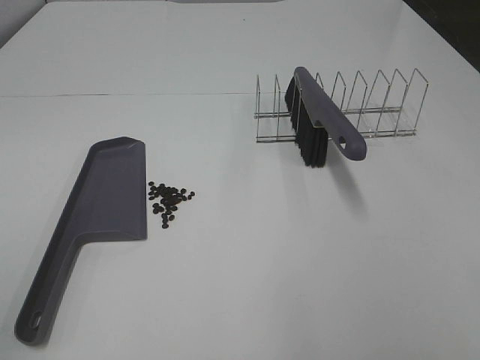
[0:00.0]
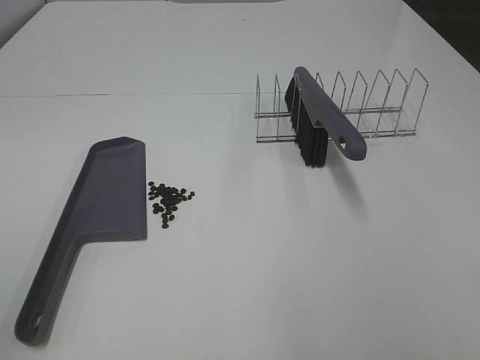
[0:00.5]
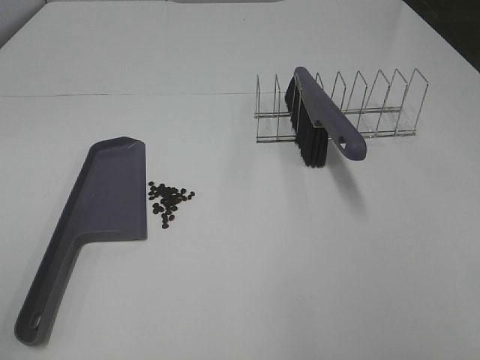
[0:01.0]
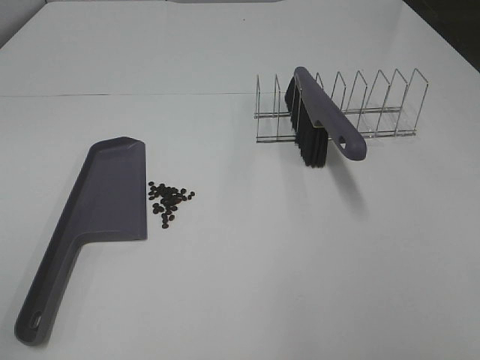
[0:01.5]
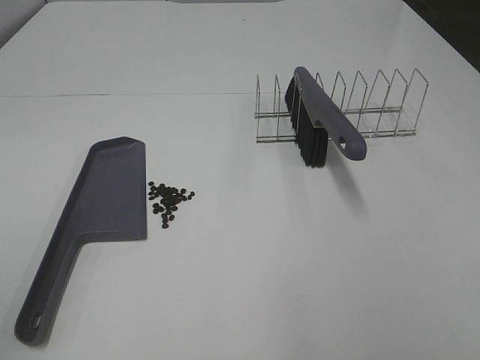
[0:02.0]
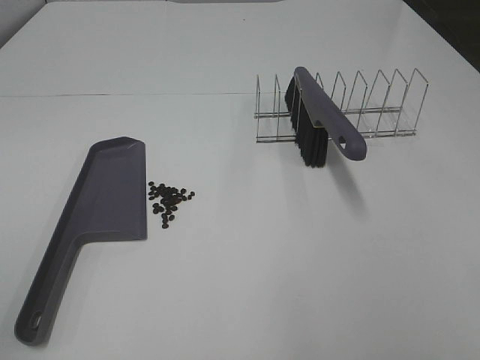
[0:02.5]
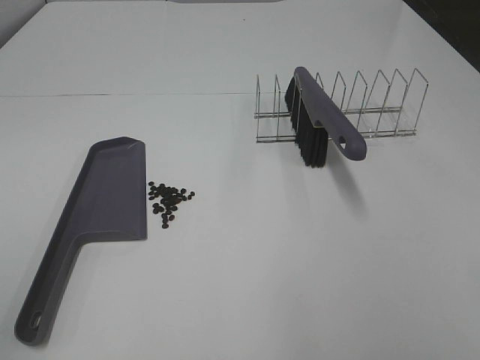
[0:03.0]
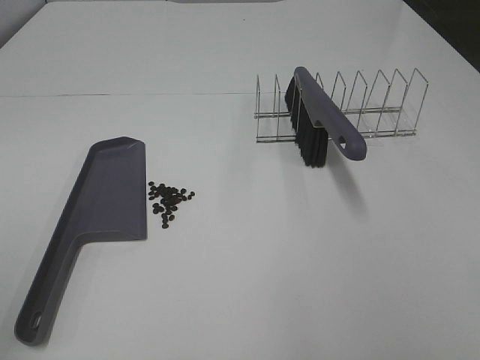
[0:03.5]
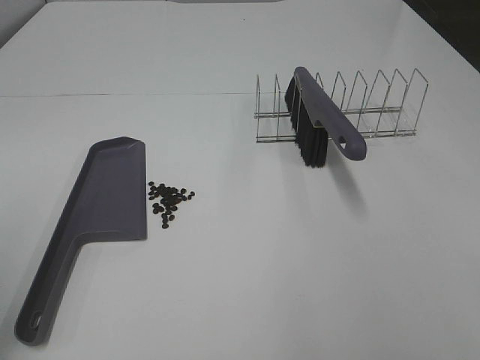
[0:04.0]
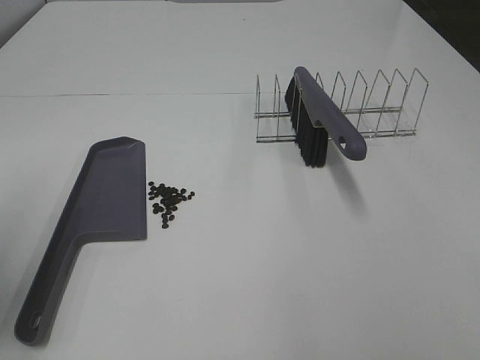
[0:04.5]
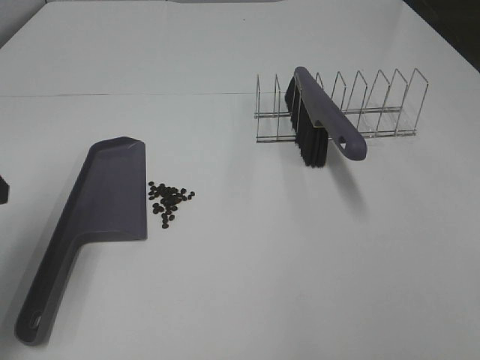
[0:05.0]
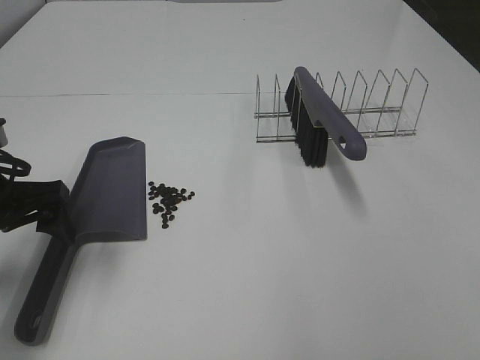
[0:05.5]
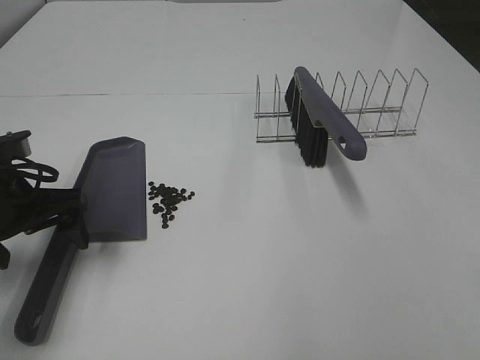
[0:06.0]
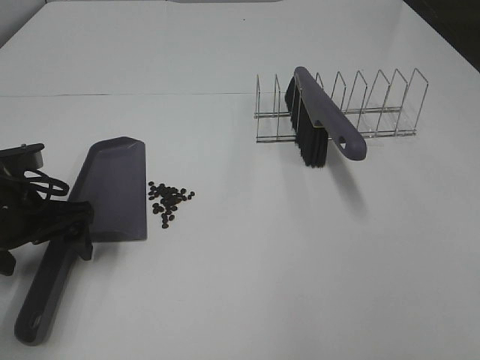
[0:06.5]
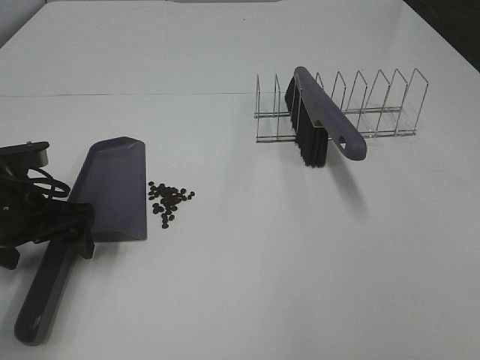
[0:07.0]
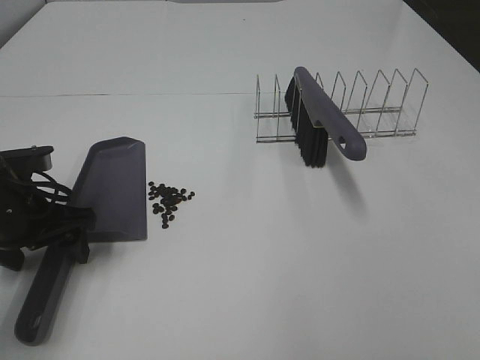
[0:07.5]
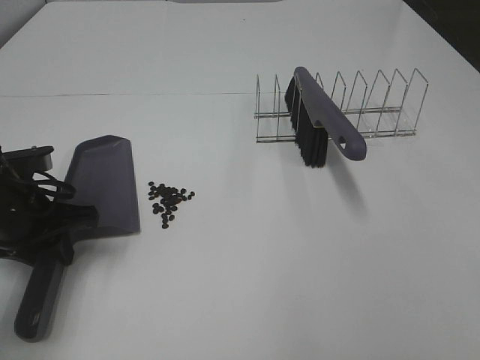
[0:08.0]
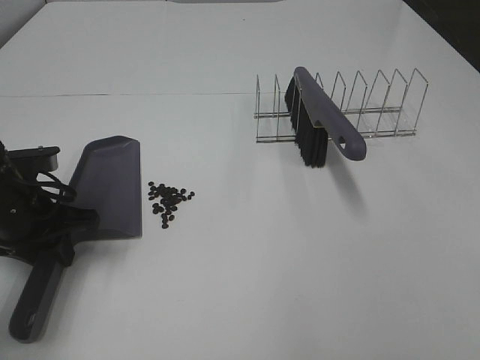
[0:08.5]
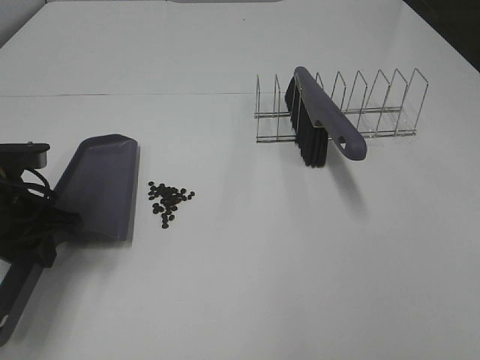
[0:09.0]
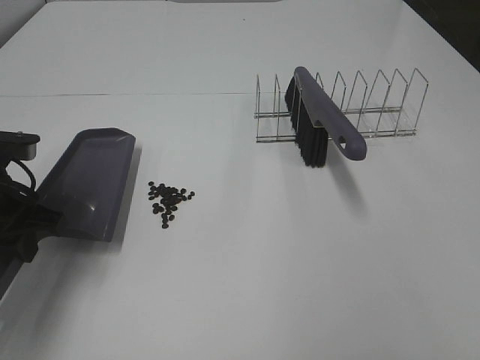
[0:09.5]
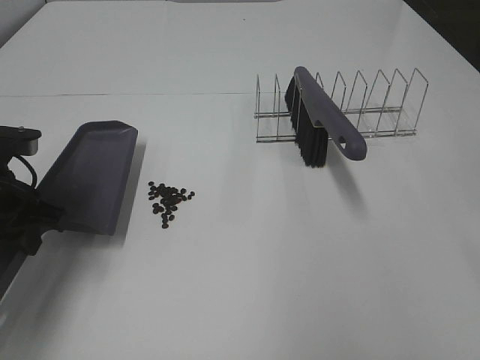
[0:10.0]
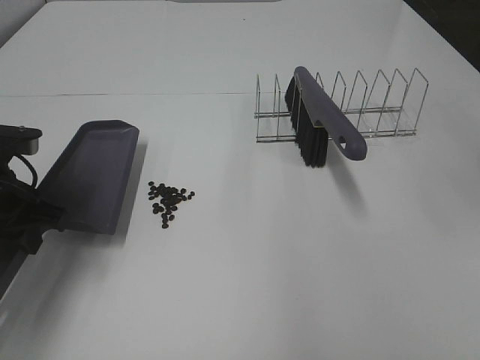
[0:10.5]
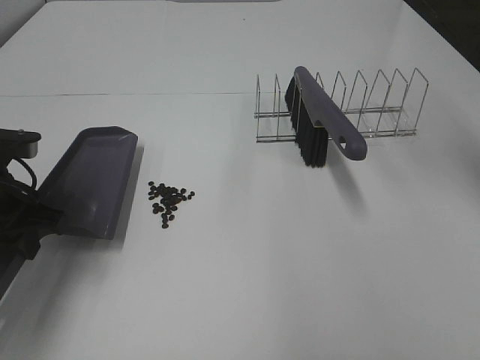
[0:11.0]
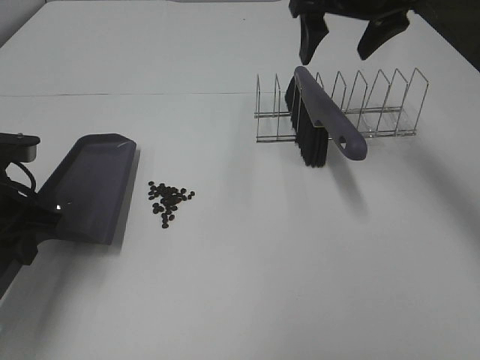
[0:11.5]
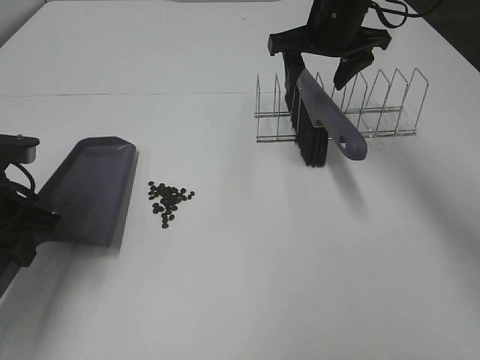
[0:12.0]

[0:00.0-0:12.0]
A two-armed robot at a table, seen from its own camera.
Task of the whole recording: Sweep Coffee Bean.
Step, 0:00.0 to 0:08.0: Left hand: grab the dustpan.
0:00.0 to 0:02.0: Both grippers stay put.
0:04.0 to 0:06.0: The left gripper moves forward, downward and to the right, approximately 25 cm.
0:06.0 to 0:08.0: The left gripper closes its fingers.
0:10.0 to 0:12.0: The right gripper heads forward and downward, covering roughly 35 cm.

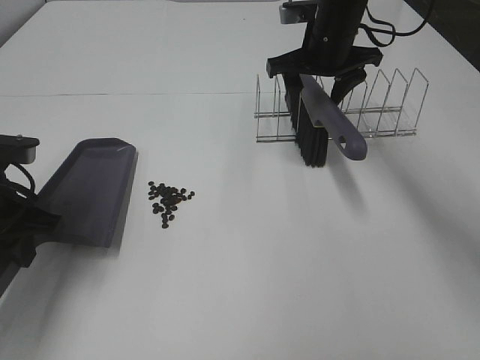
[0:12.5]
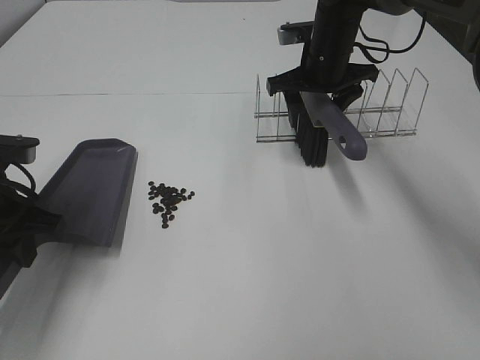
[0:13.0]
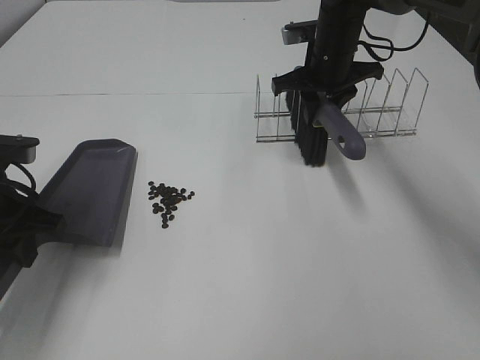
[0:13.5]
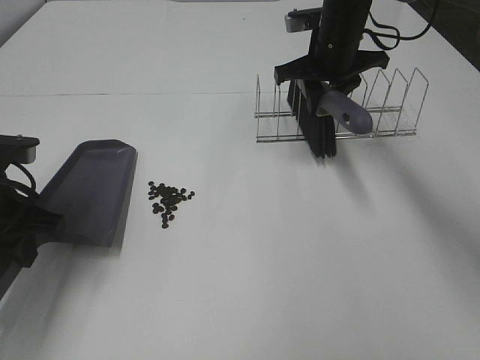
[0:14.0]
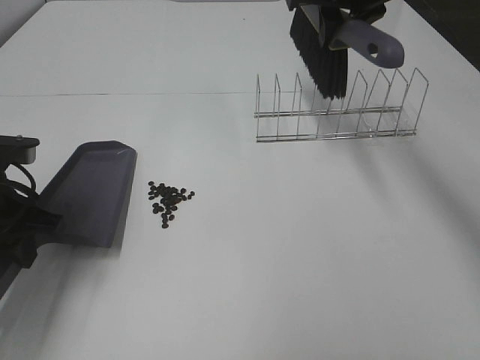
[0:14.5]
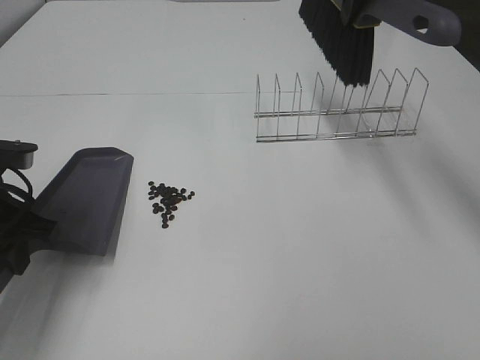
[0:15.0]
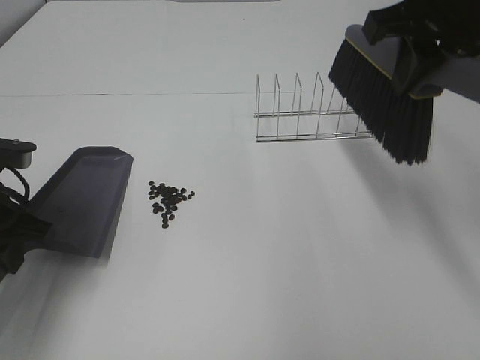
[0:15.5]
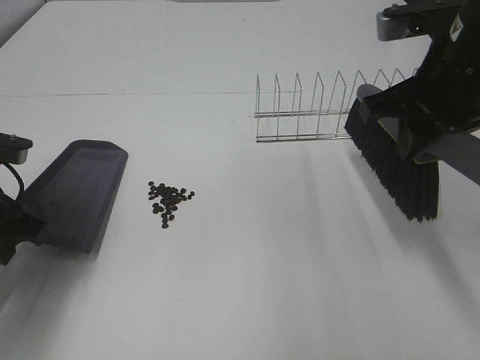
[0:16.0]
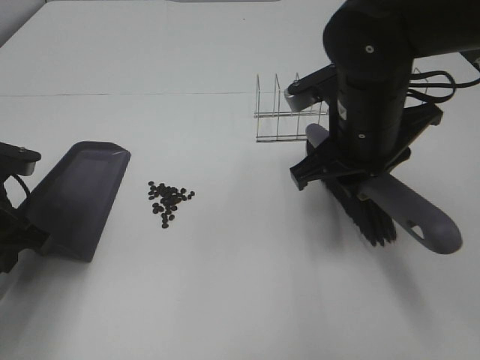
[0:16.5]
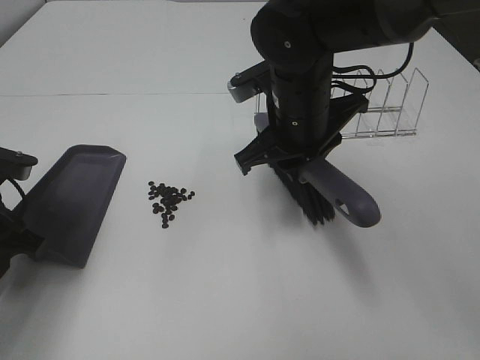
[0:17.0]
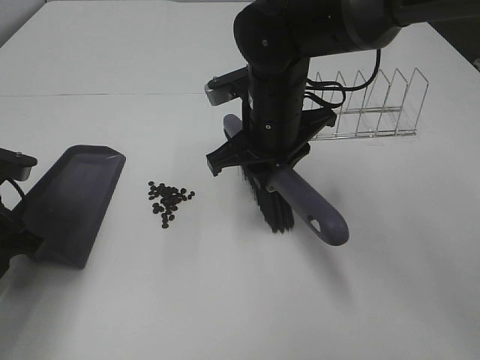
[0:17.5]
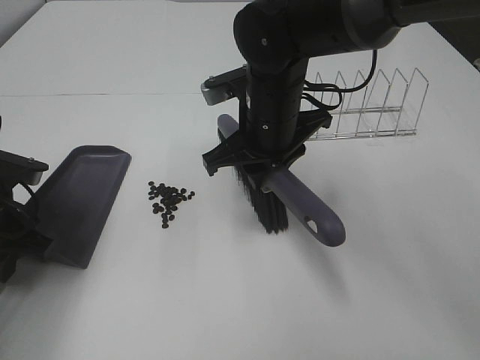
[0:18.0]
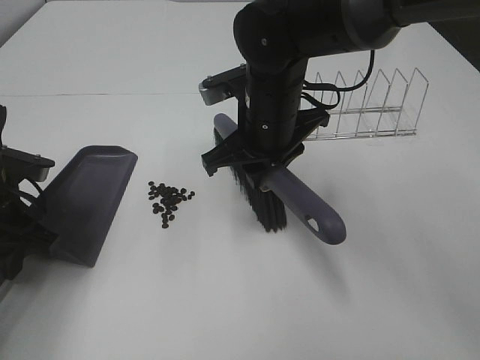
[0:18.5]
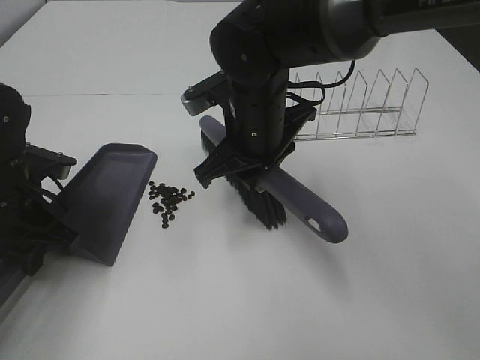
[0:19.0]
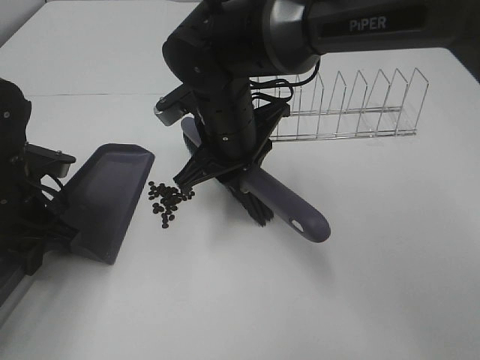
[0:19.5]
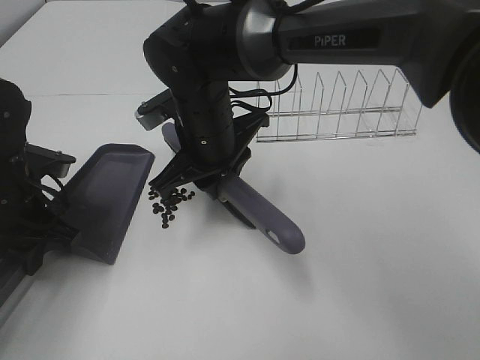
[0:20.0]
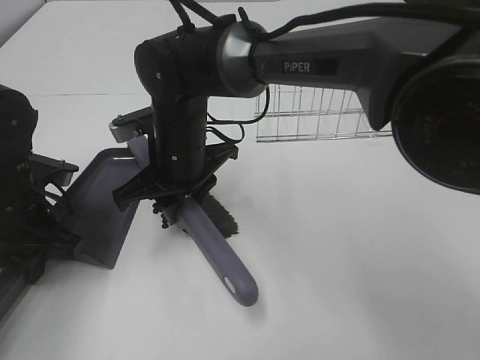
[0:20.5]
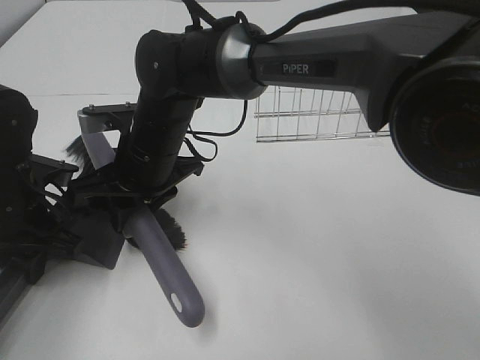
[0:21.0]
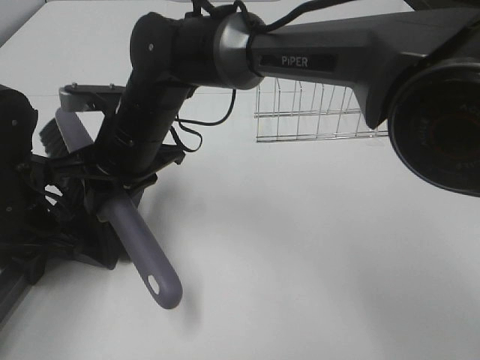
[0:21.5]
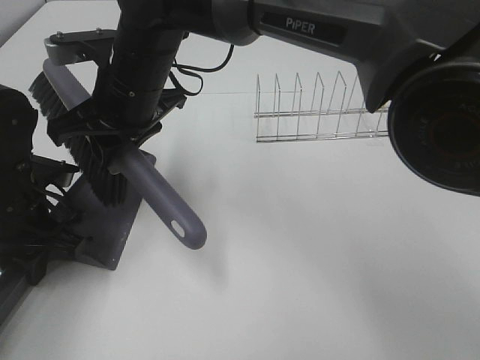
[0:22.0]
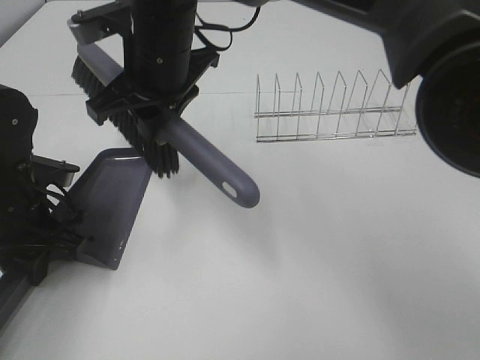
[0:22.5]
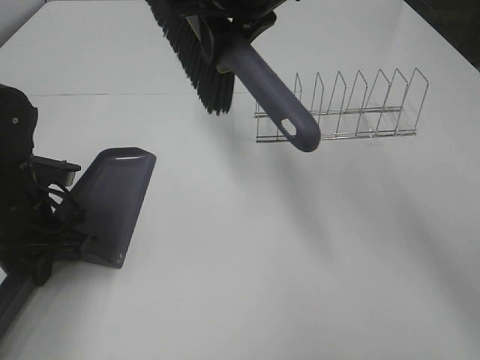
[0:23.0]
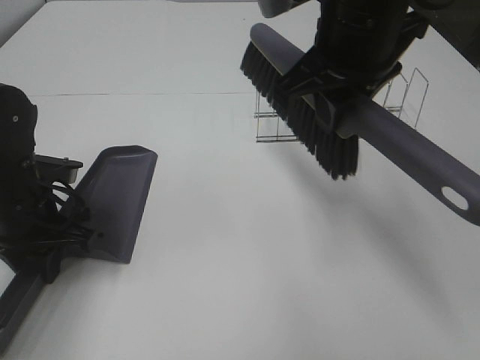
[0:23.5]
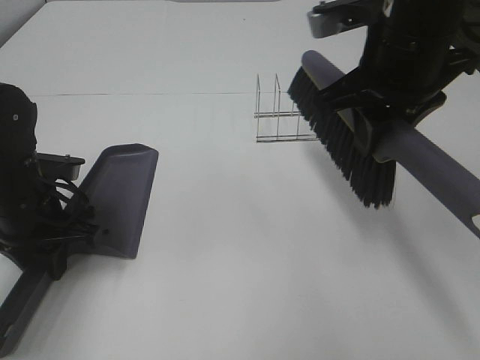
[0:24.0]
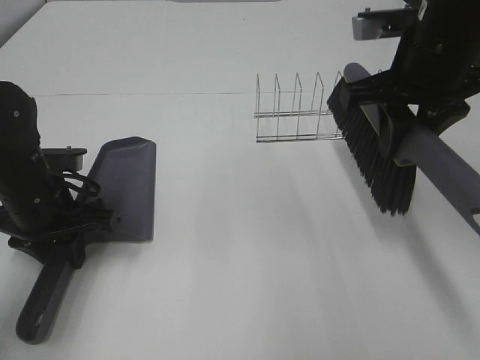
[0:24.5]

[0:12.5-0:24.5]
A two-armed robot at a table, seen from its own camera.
Task of the whole recording: Sweep Coffee Bean.
Step, 0:14.0 to 0:22.0: Right hand:sweep the coffee beans into the dustpan.
0:12.5 to 0:14.5: The right gripper is displaced upward by some 10 cm, and closes.
0:14.5 to 0:16.5: The right gripper travels backward and downward by roughly 20 cm.
0:16.5 to 0:18.5: The right gripper shifts approximately 10 cm to the left.
0:18.5 to 0:20.5: The right gripper goes about 10 cm to the left.
0:20.5 to 0:22.5: The right gripper heads upward, covering some 10 cm.
0:22.5 to 0:24.5: The right gripper shifts roughly 25 cm to the right.

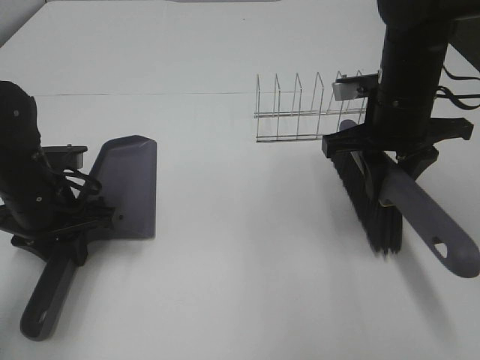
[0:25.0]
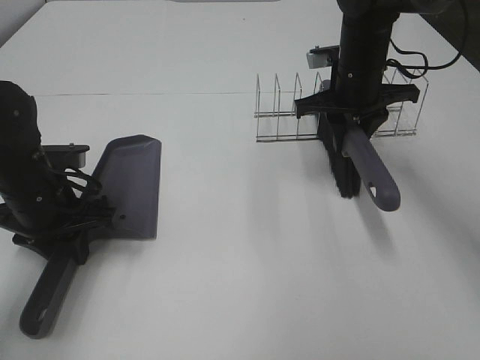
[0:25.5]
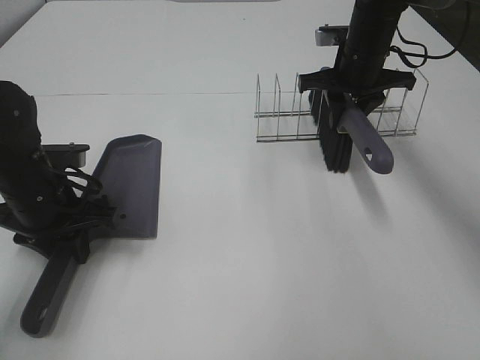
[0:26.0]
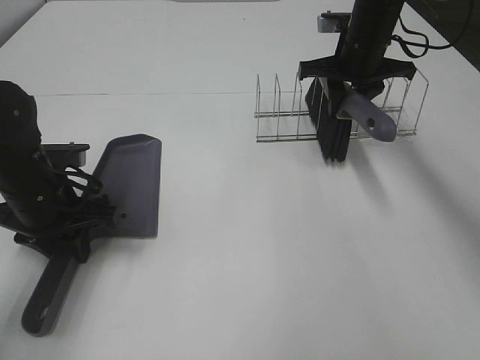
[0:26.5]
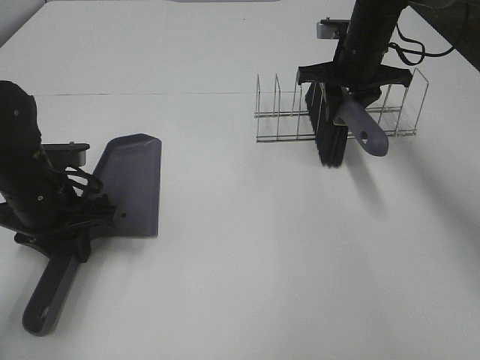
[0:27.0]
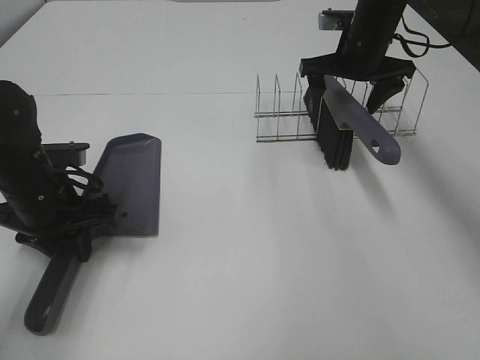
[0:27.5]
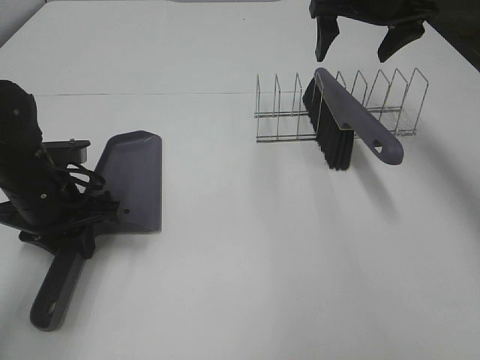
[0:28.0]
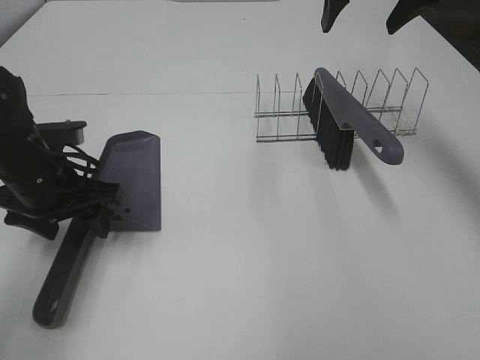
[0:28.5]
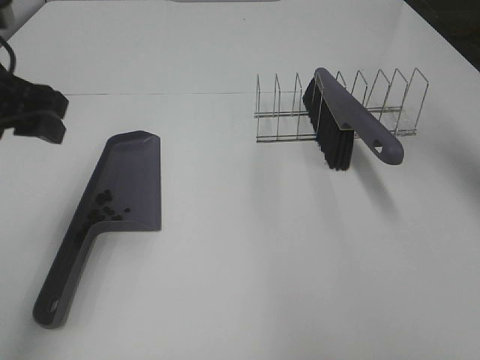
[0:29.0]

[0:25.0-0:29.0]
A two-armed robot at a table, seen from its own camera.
Task of the whole recording: Sweep Coffee Bean.
Step, 0:25.0 to 0:27.5: Right hand:place the broom on the rack.
0:25.0 to 0:27.0: The right gripper is displaced forward by approximately 15 cm.
0:27.0 to 0:29.0: Both grippers travel together upward, some 20 cm. The left gripper opens up. Meanwhile the right gripper opens.
